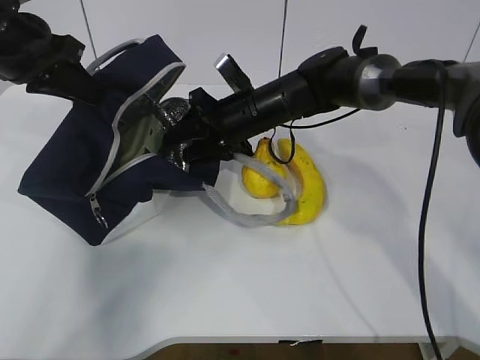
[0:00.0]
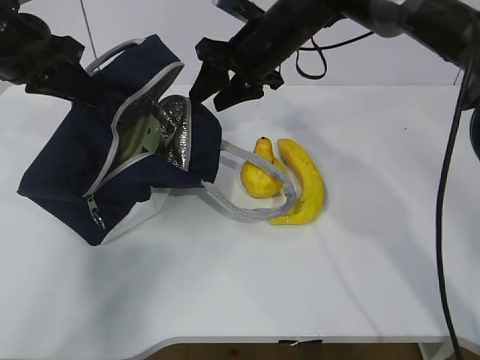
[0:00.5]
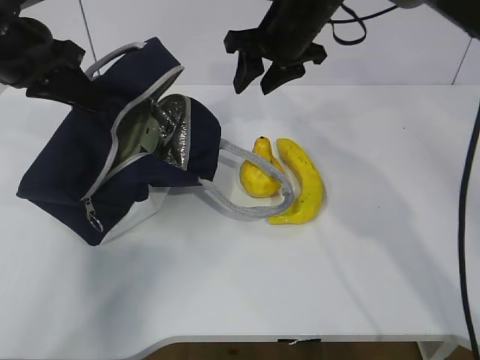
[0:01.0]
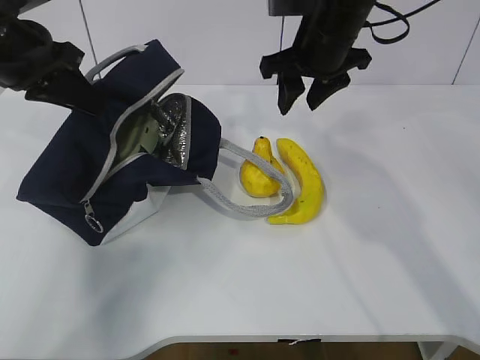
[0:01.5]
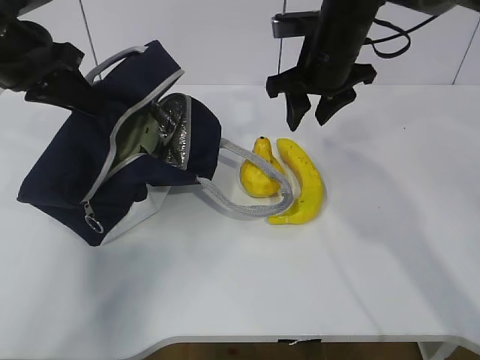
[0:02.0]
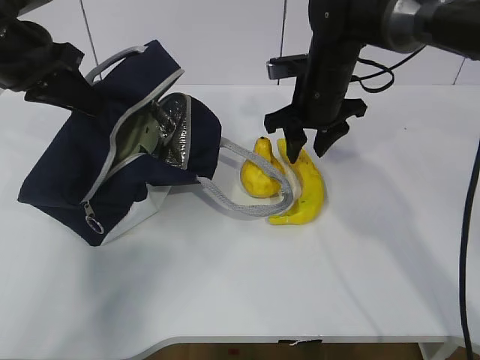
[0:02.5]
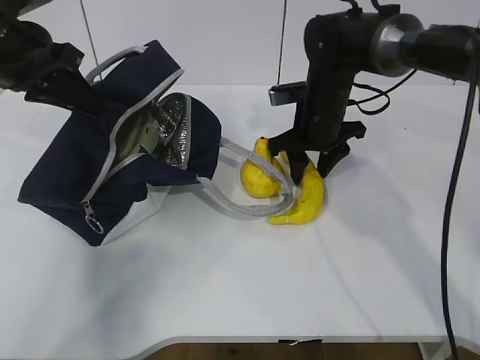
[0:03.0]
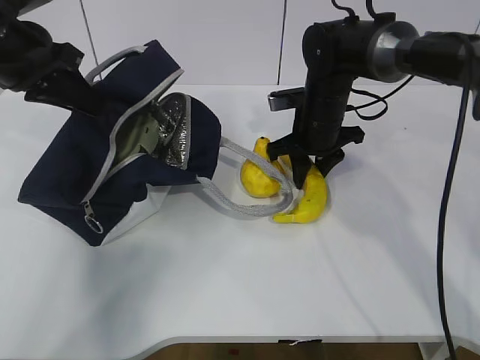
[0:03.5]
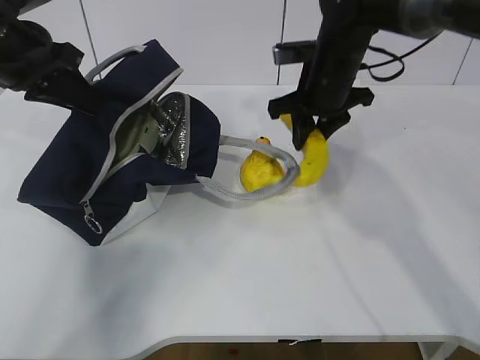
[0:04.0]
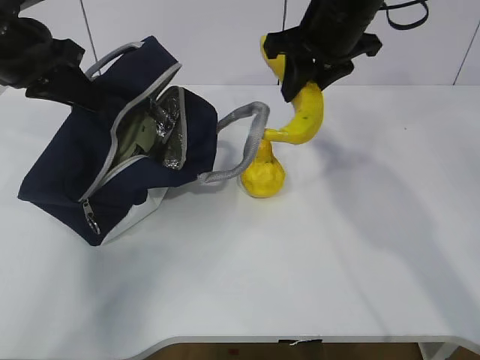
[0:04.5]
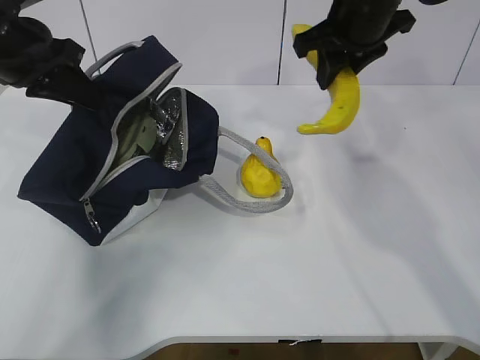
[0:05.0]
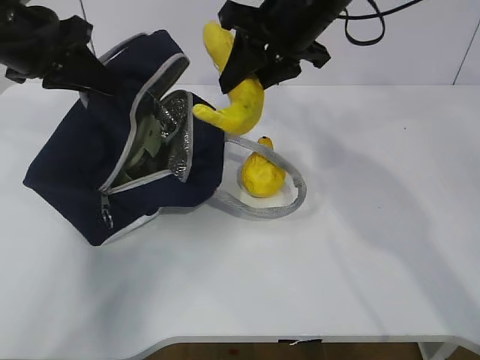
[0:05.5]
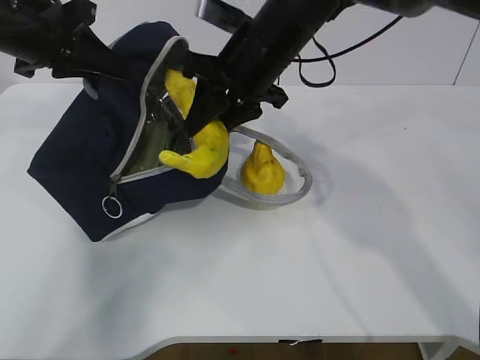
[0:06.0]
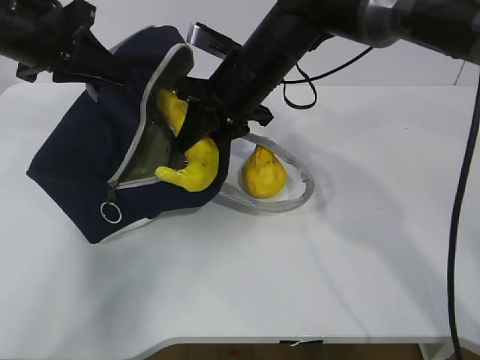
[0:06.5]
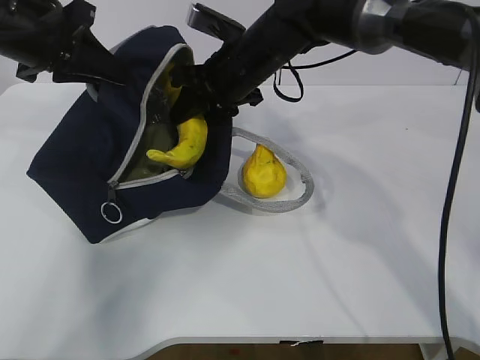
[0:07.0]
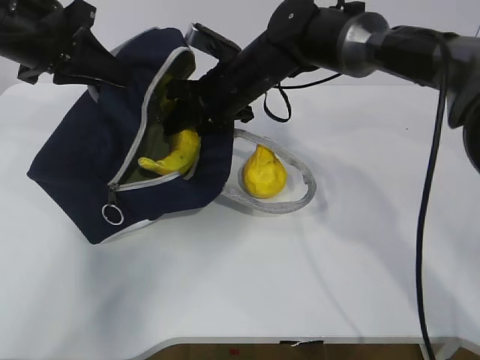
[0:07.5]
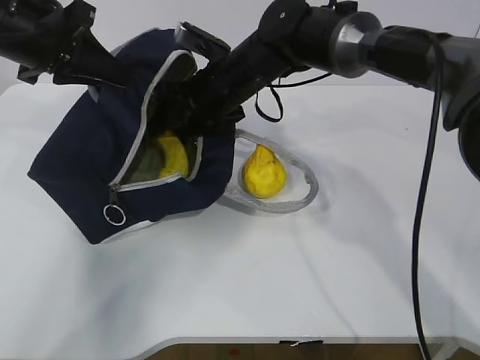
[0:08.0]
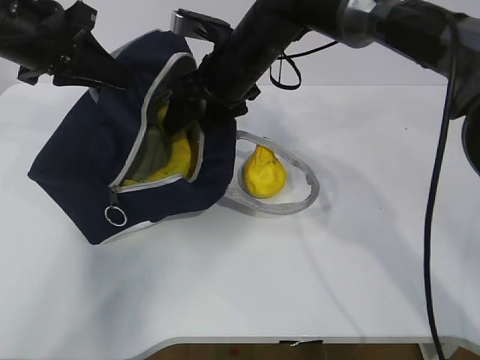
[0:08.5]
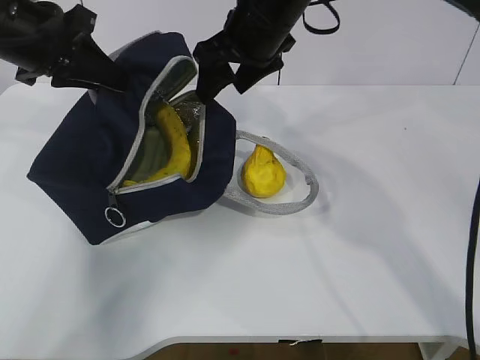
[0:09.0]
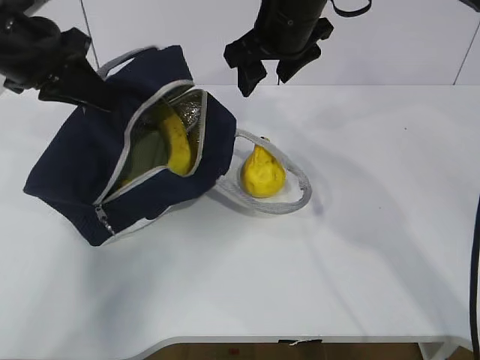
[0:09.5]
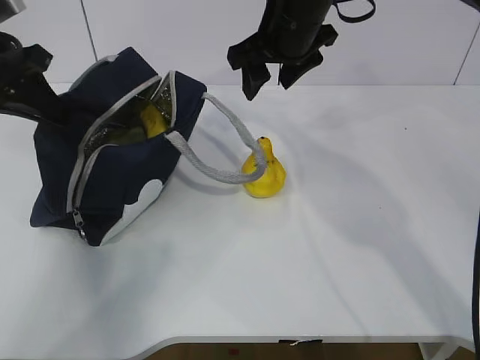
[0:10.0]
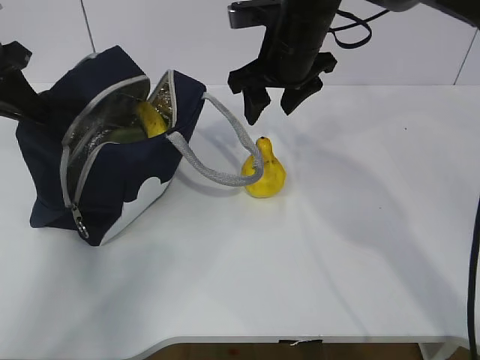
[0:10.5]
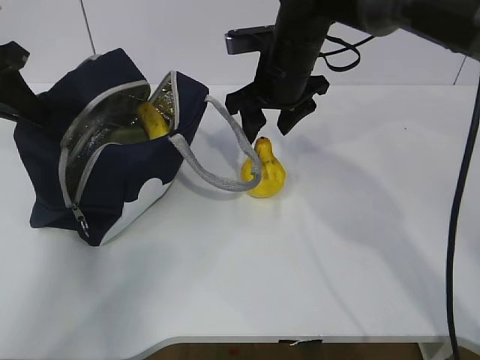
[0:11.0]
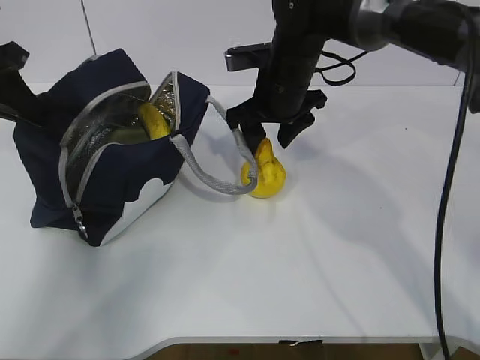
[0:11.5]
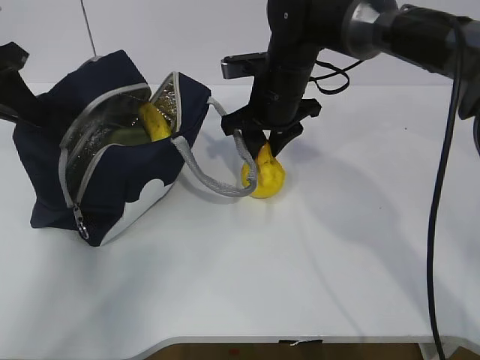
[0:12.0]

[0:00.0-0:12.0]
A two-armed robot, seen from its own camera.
Step, 0:00.0 to 0:03.0: Place it into the bag with your right hand.
Step, 0:03.5 to 0:06.0: Grab the pear with your right hand.
Step, 0:09.5 to 0:10.5: Grab the lunch bag with your right hand.
0:00.0 to 0:02.0: The right gripper moves upward and to the right, roughly 10 cm.
0:04.0 to 0:06.0: The right gripper is displaced to the left and upward by approximately 10 cm.
0:06.0 to 0:08.0: The right gripper moves downward, approximately 5 cm, and opens up.
0:08.0 to 0:10.0: The left gripper shifts some 5 cm to the left. The right gripper heads upward and to the right, covering approximately 10 cm.
0:10.0 to 0:12.0: The right gripper goes some 10 cm downward.

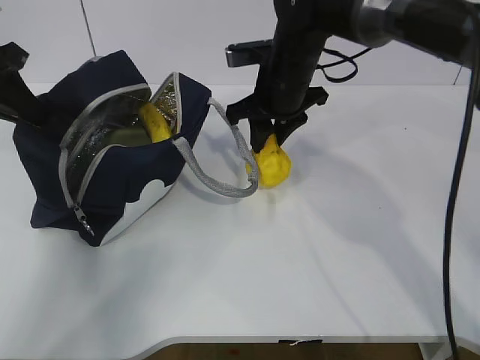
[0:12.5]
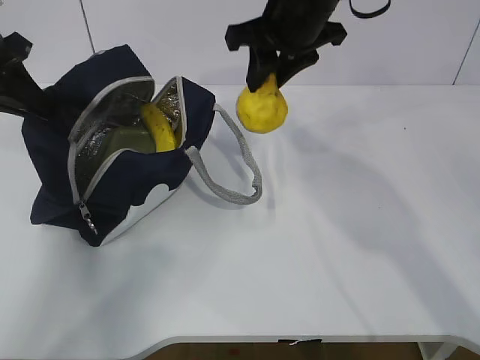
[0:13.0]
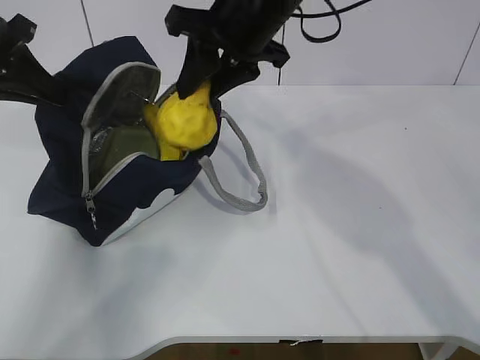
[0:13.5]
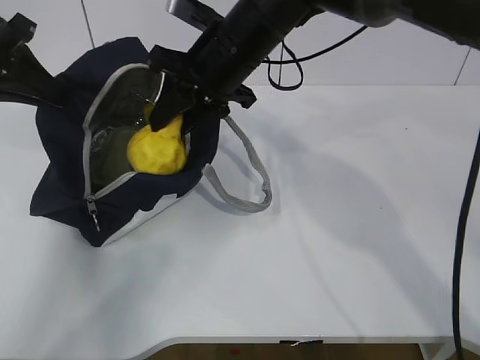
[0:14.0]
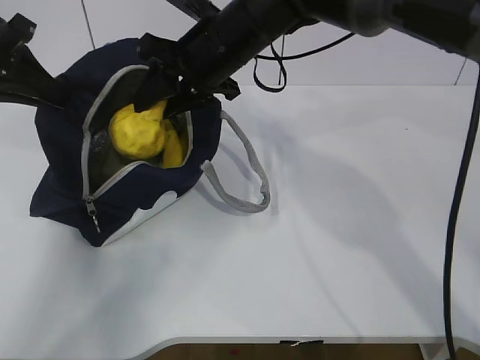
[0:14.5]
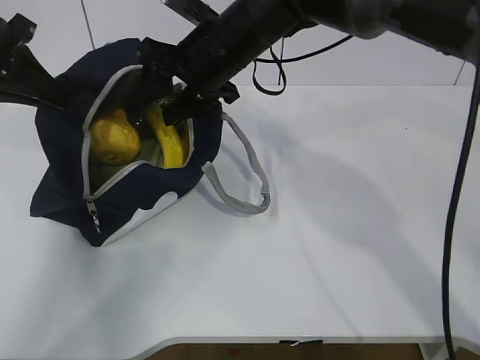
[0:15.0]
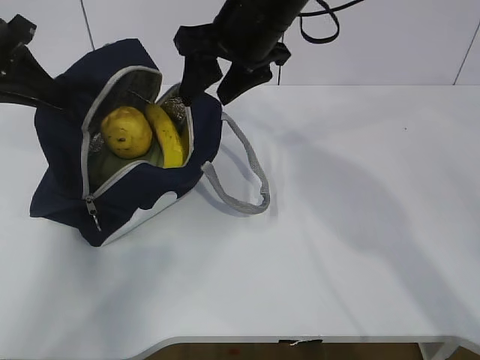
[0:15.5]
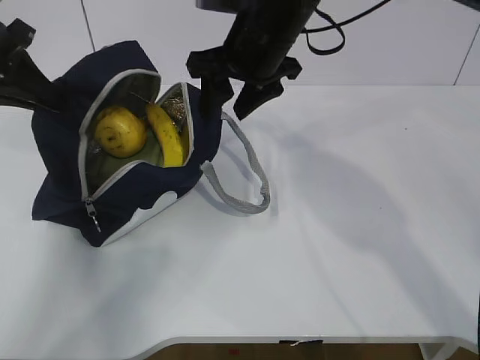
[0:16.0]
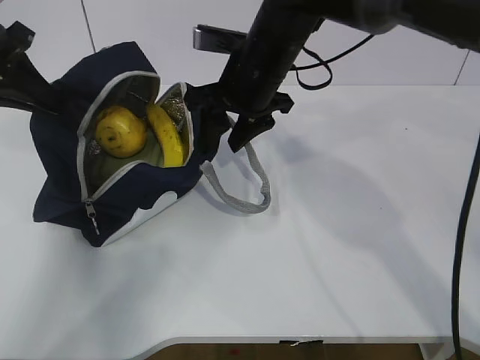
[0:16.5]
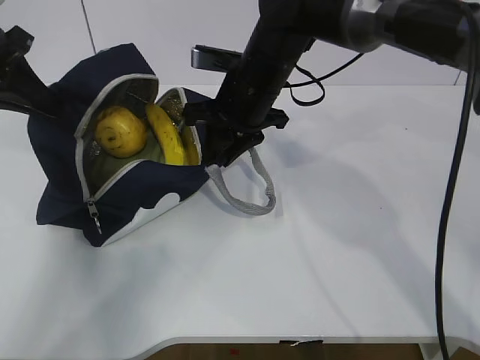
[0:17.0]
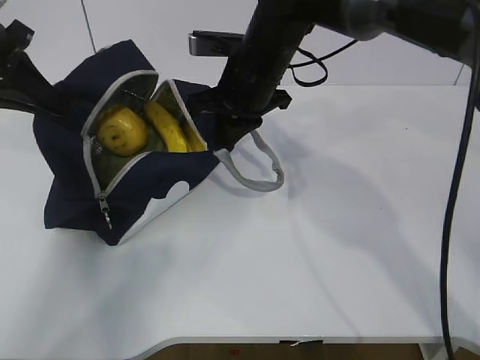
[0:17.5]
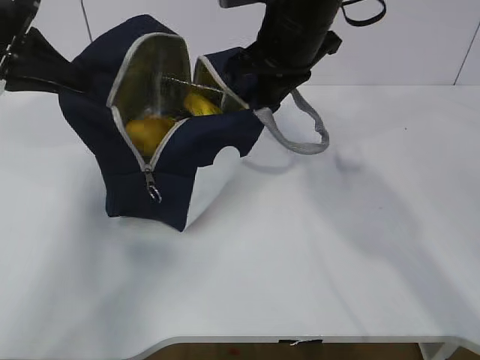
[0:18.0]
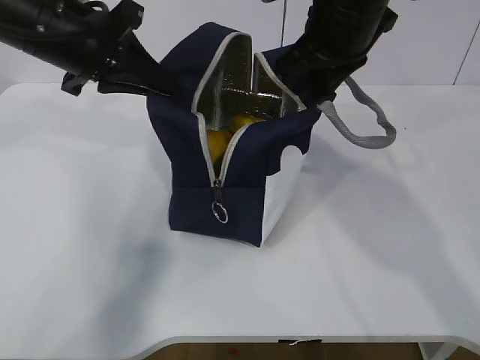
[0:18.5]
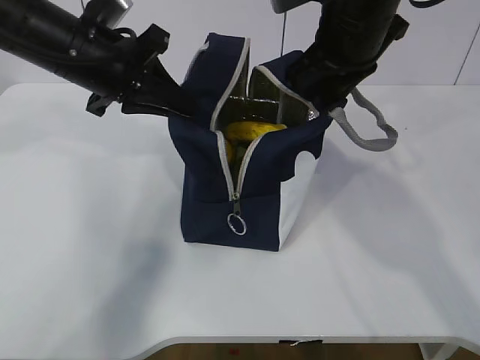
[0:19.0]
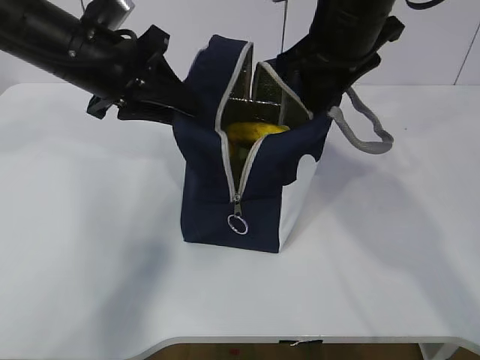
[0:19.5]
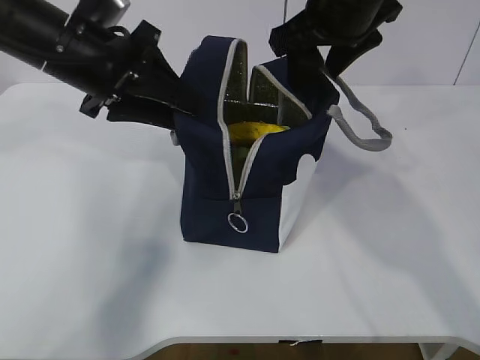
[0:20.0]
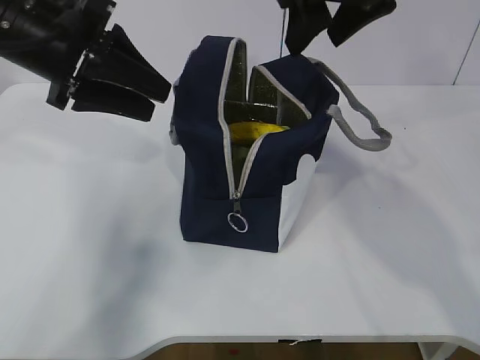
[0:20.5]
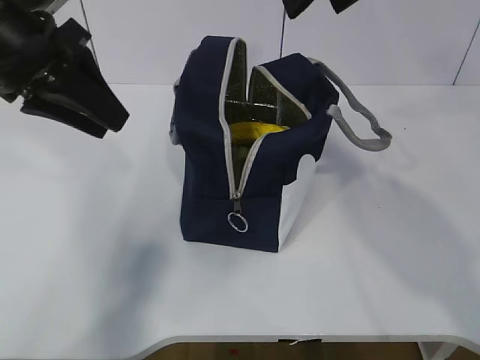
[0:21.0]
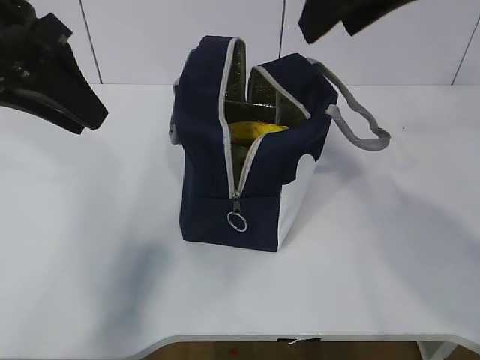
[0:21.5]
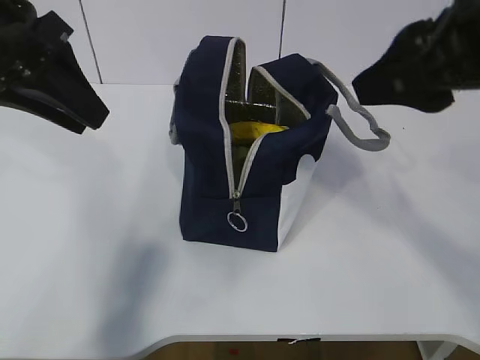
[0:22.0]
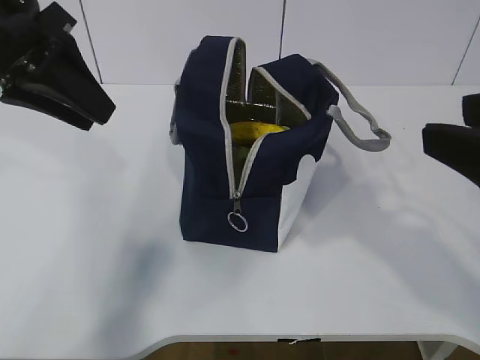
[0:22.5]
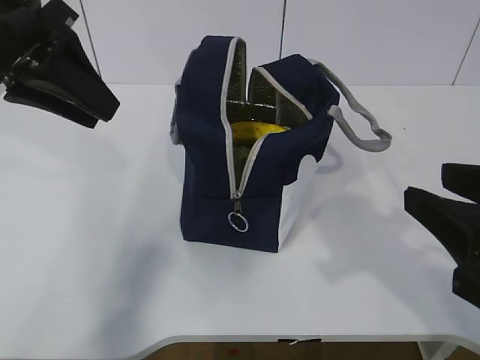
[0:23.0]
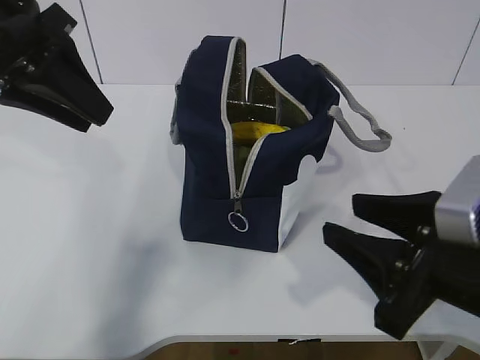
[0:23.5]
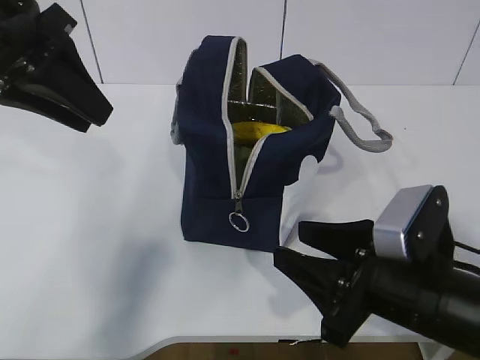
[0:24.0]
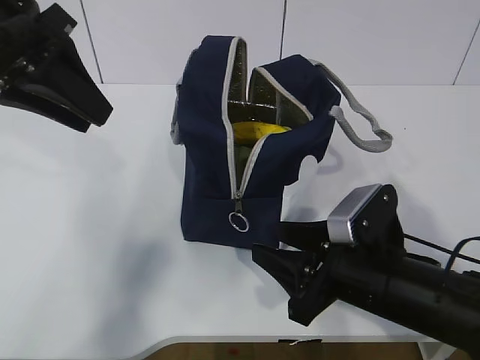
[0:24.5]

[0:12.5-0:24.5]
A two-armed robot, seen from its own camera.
0:12.5 to 0:14.5: The right gripper is displaced to the left and upward by approximately 10 cm.
0:16.5 to 0:18.5: The right gripper travels upward and to the right by some 10 cm, and closes, while the left gripper shifts approximately 10 cm to the right.
0:18.5 to 0:20.5: The left gripper opens its fingers. Meanwhile the right gripper heads upward, covering about 5 cm, and opens.
0:20.5 to 0:22.5: The left gripper shifts by roughly 5 cm. Meanwhile the right gripper shifts about 25 cm backward and to the right.
0:22.5 to 0:24.5: The right gripper shifts some 20 cm downward.

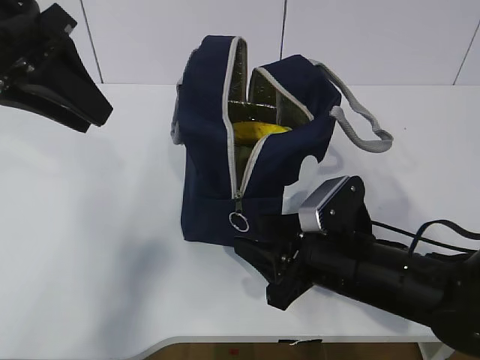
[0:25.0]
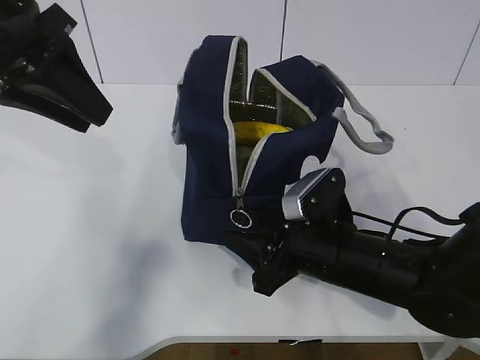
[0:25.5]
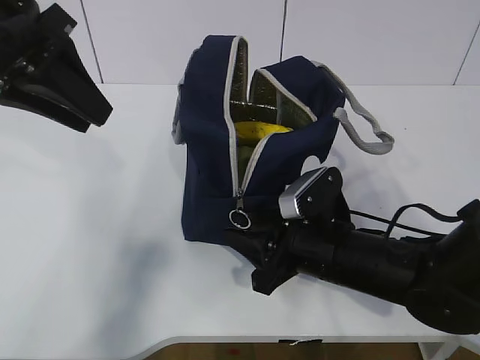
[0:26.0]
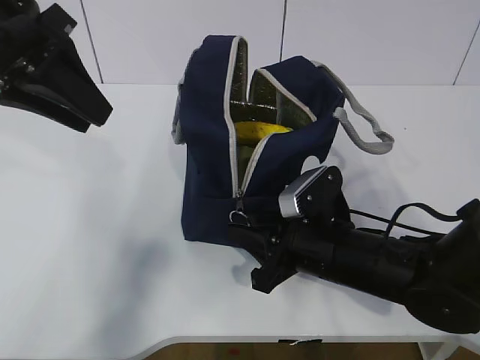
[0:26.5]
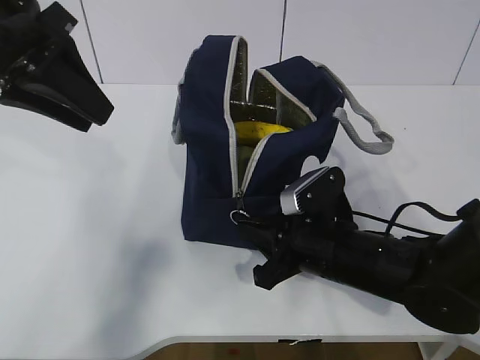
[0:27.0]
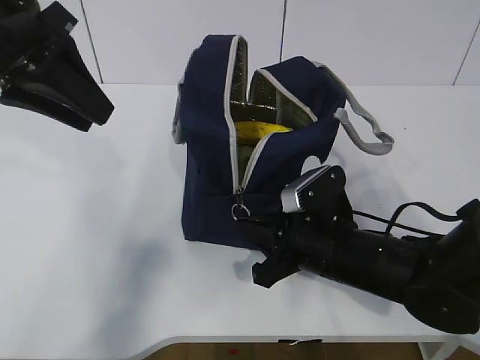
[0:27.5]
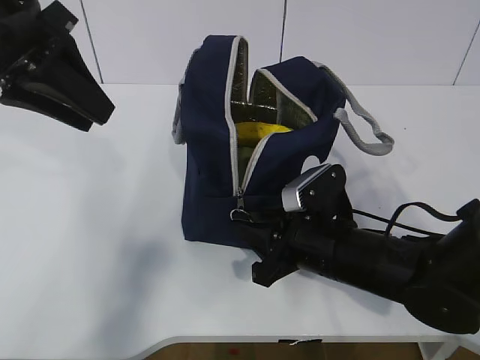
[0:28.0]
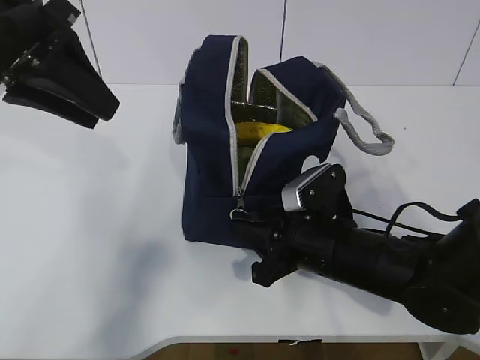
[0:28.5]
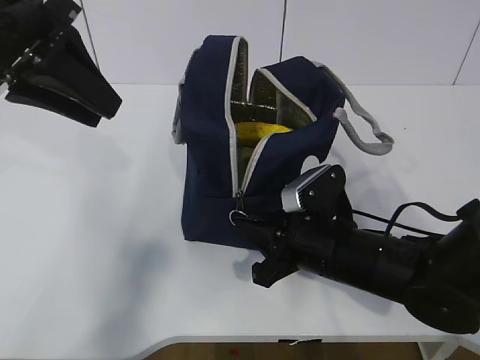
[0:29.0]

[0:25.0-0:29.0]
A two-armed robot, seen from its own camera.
0:25.0 to 0:27.0: The right gripper closes up.
0:27.0 to 0:29.0: The two grippers keep their place.
